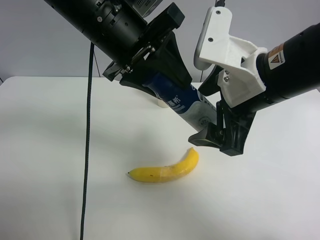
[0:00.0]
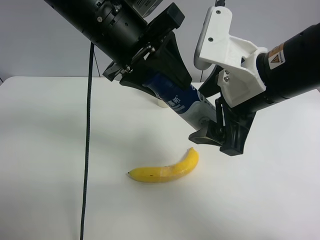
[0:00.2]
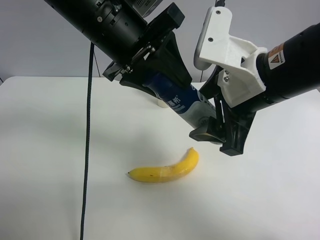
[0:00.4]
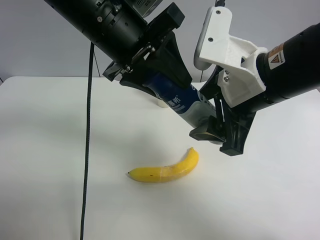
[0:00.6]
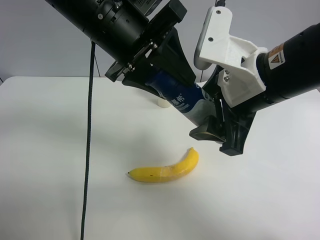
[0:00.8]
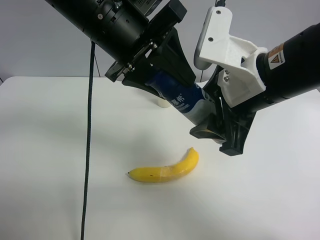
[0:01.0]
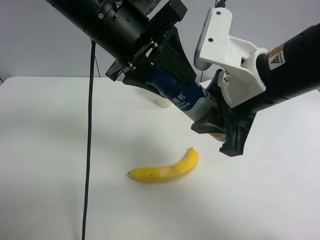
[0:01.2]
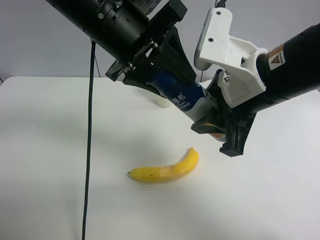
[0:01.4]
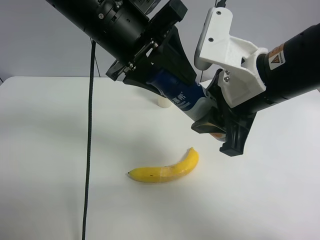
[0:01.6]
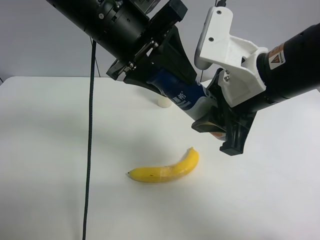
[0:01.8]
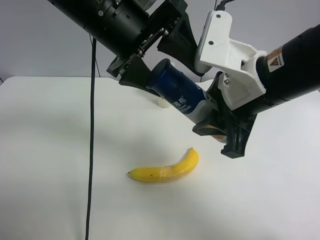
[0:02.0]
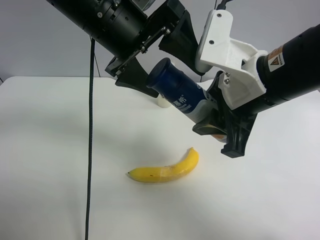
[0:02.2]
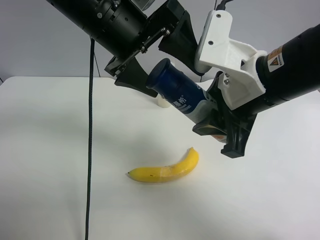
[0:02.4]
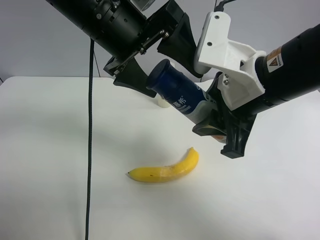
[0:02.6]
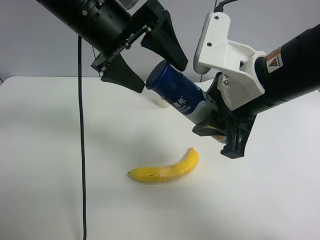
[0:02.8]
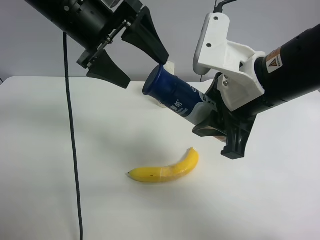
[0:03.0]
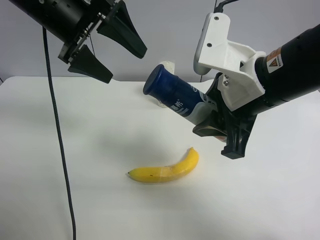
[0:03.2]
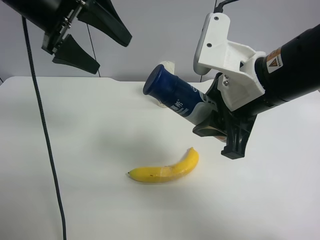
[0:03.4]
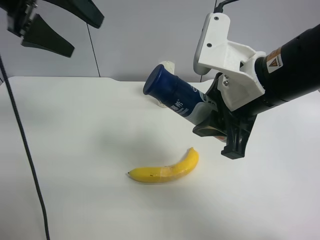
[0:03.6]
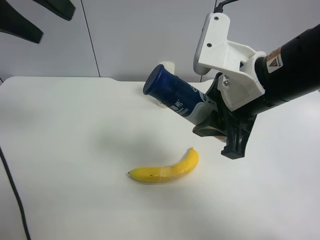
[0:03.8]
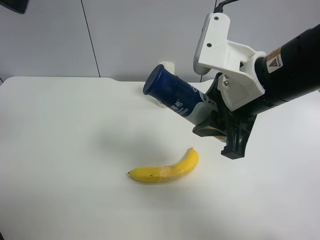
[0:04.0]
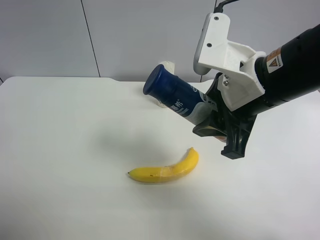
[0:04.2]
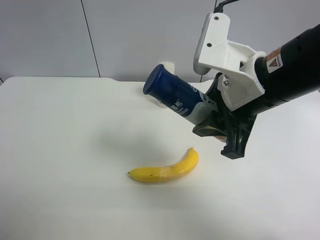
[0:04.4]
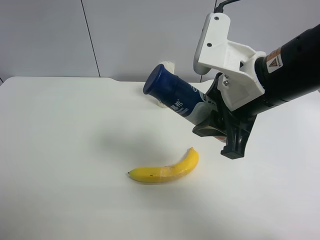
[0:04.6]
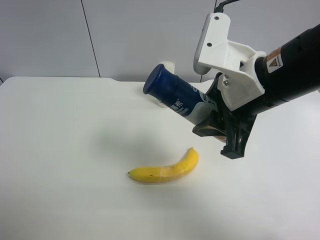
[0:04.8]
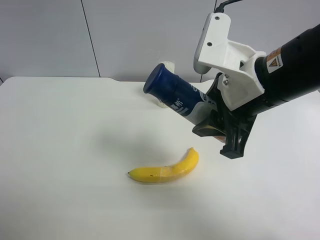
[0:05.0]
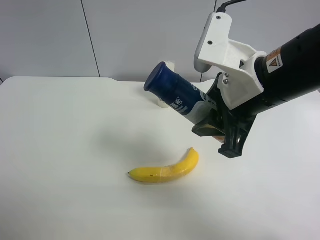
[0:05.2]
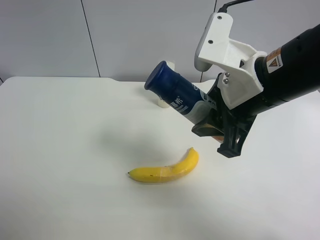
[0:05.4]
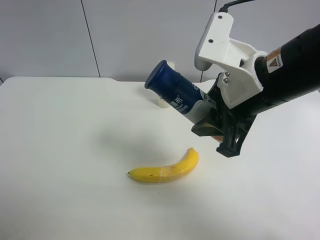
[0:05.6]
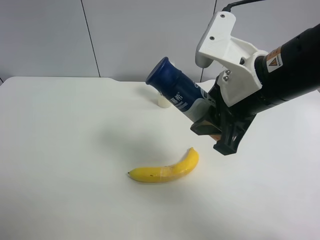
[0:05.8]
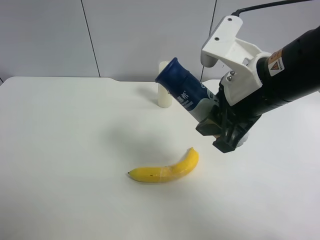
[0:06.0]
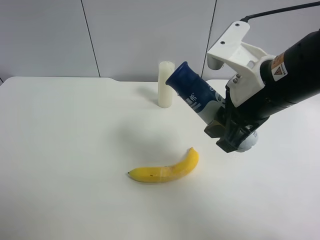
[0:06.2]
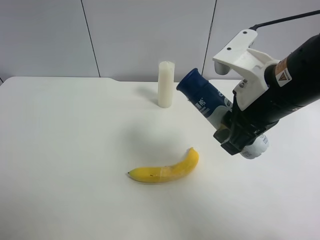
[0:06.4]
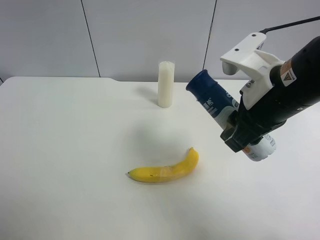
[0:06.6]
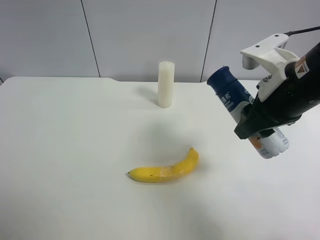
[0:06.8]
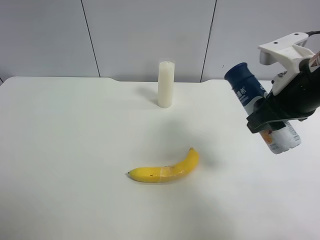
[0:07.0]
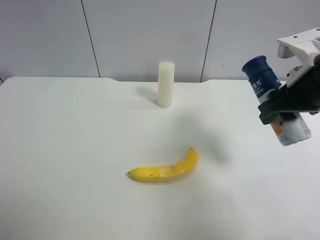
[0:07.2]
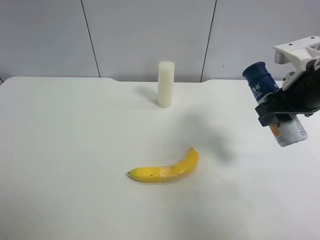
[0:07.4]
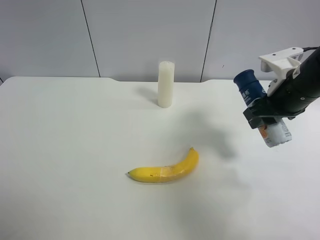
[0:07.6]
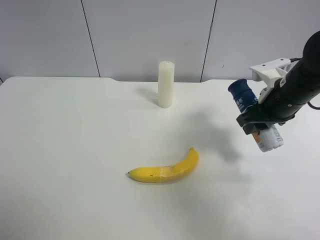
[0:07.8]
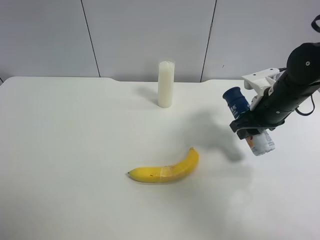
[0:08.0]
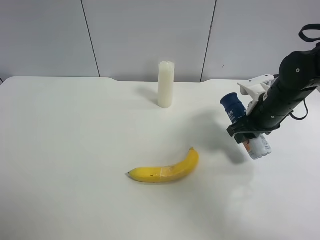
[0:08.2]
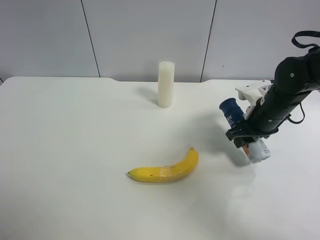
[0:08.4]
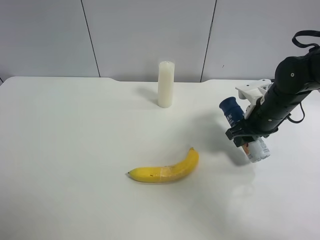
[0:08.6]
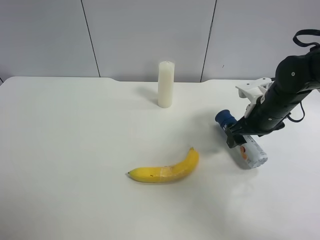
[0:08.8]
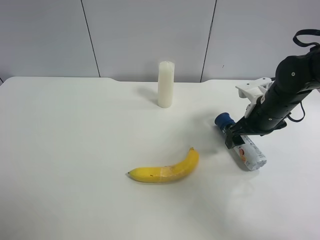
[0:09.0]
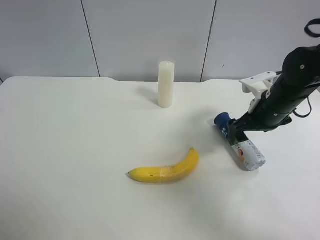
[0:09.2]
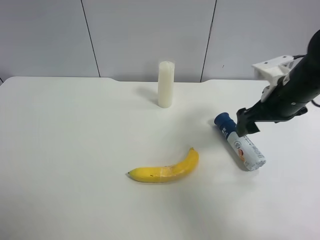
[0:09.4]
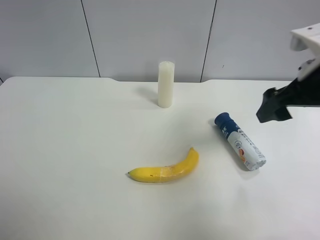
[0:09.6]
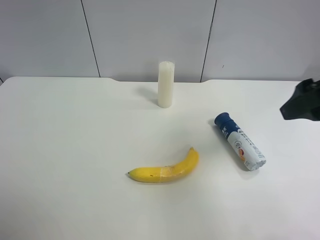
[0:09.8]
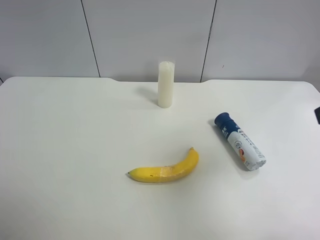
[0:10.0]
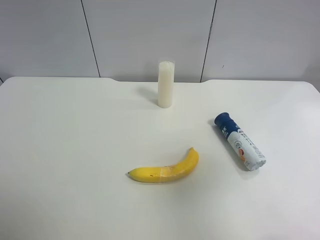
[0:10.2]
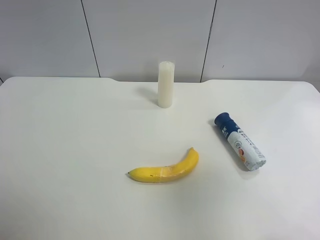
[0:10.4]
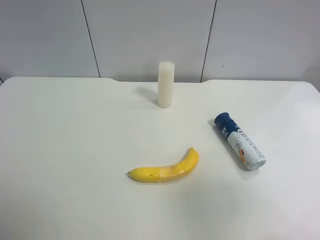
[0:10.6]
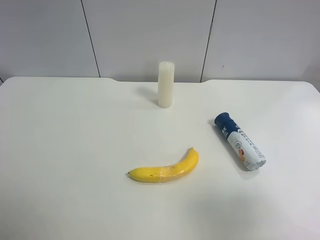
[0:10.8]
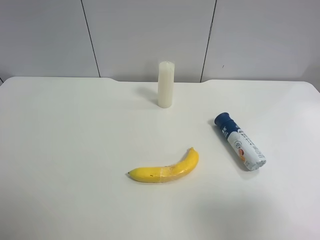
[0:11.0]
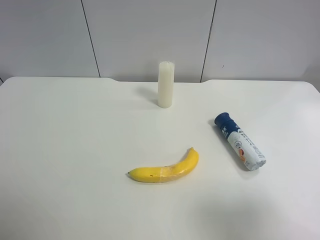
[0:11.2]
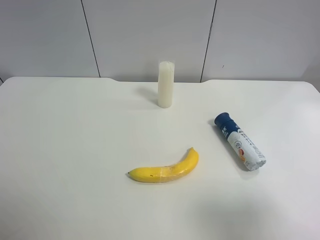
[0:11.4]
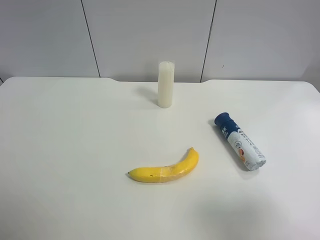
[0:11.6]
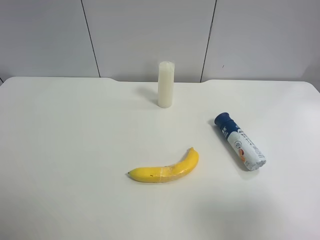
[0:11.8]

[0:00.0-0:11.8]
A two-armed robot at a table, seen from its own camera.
Task of the whole recording: use the left gripper to pick up the item and transfer it from the left gripper to the right gripper.
0:00.0 to 0:01.4: The right gripper closes.
0:01.4 to 0:03.0: The left gripper travels to the left by about 5 cm, and opens up.
0:03.0 to 0:04.4: The left gripper travels backward and to the left by about 30 cm.
0:04.4 to 0:06.0: The left gripper heads downward and backward, covering about 15 cm.
0:06.0 to 0:07.4: The right gripper is displaced to the right and forward by some 10 cm.
0:07.4 to 0:08.8: The right gripper travels downward by roughly 10 cm, and opens its fingers.
0:08.8 to 0:10.4: The right gripper moves backward and upward, some 35 cm.
0:10.4 to 0:11.8: The right gripper travels downward by roughly 5 cm.
